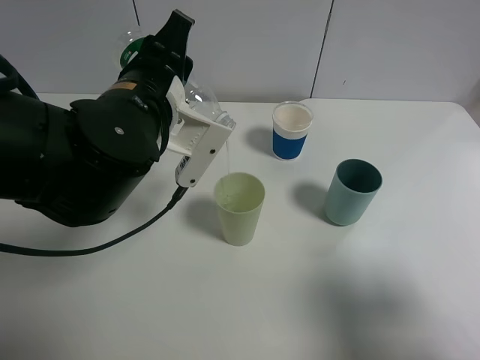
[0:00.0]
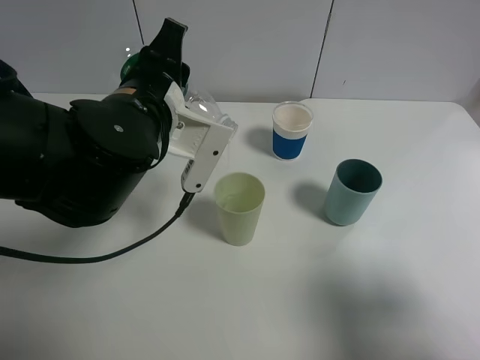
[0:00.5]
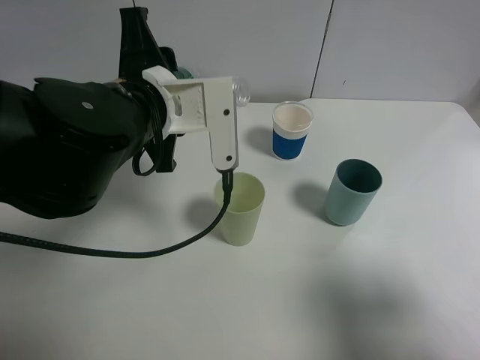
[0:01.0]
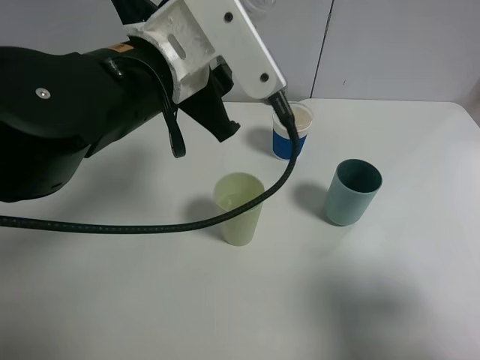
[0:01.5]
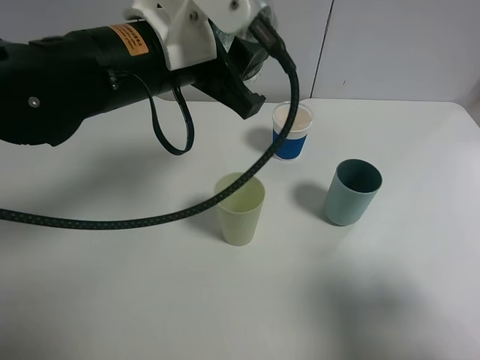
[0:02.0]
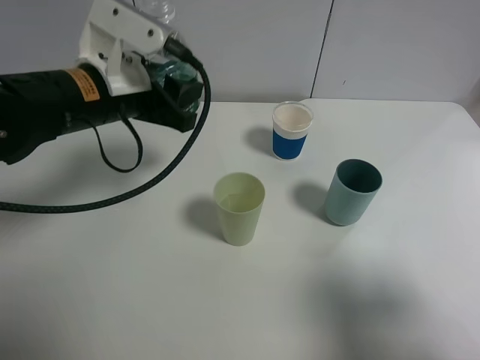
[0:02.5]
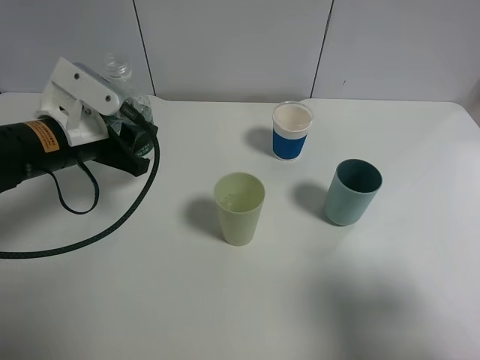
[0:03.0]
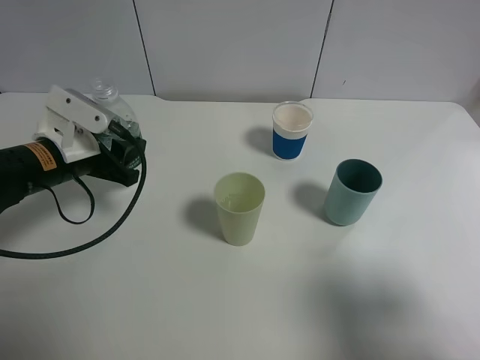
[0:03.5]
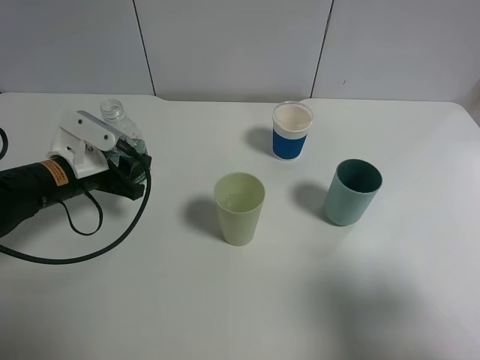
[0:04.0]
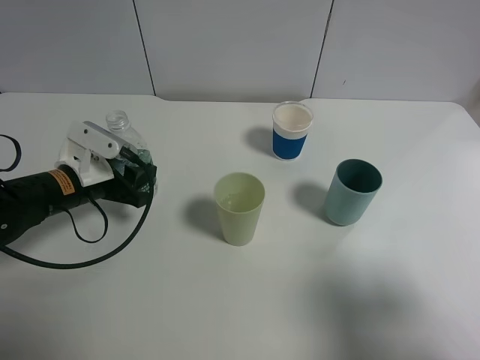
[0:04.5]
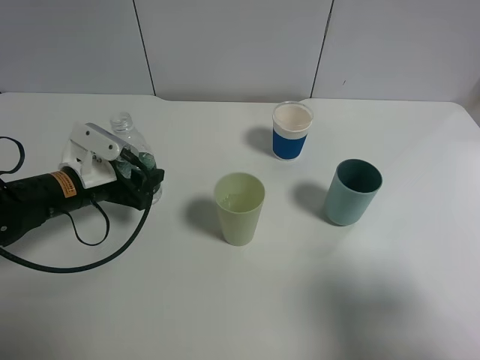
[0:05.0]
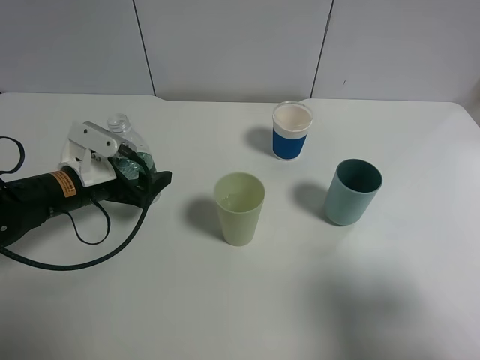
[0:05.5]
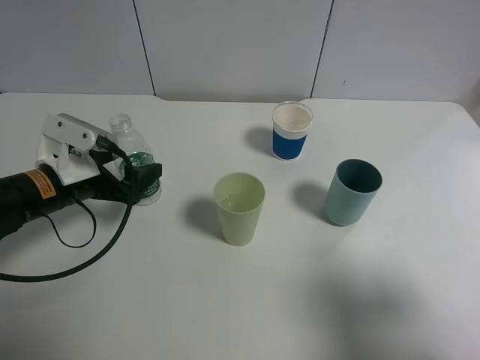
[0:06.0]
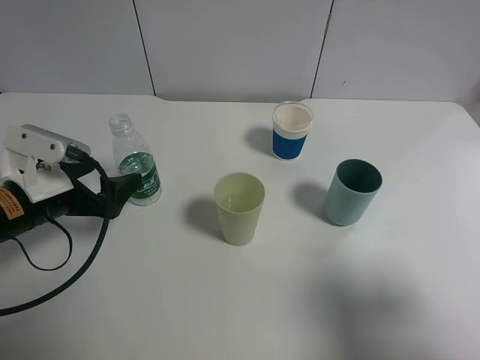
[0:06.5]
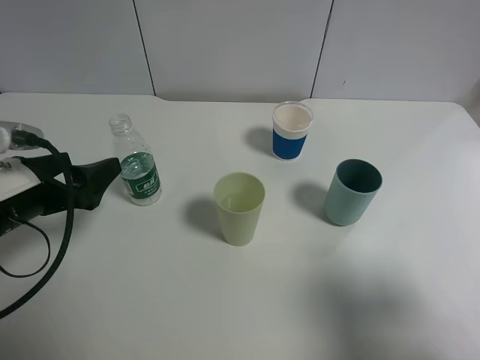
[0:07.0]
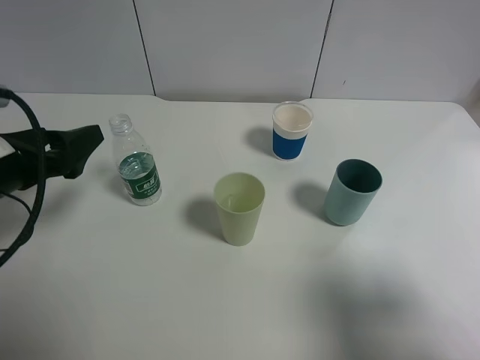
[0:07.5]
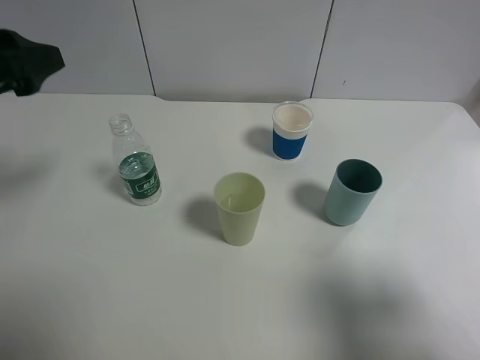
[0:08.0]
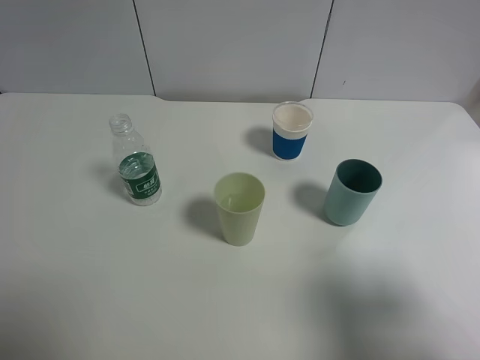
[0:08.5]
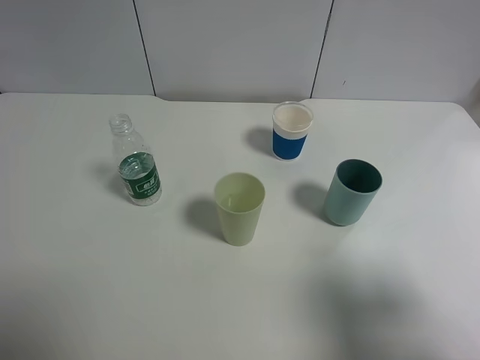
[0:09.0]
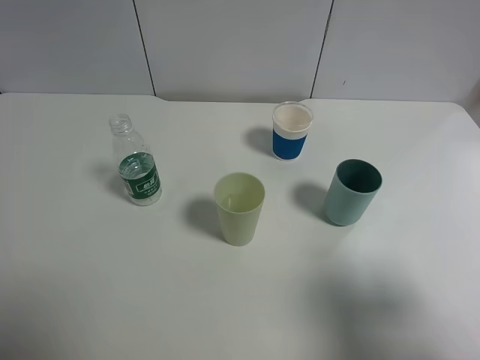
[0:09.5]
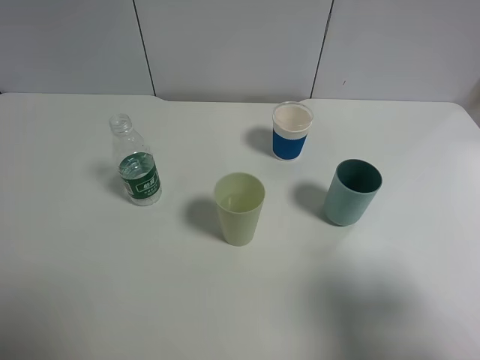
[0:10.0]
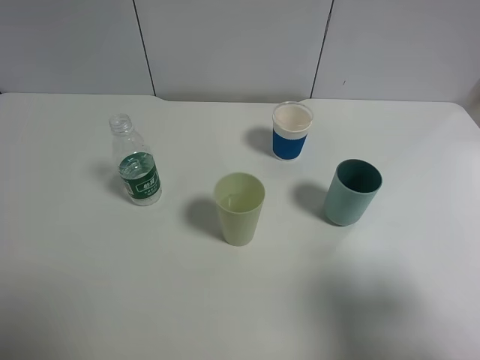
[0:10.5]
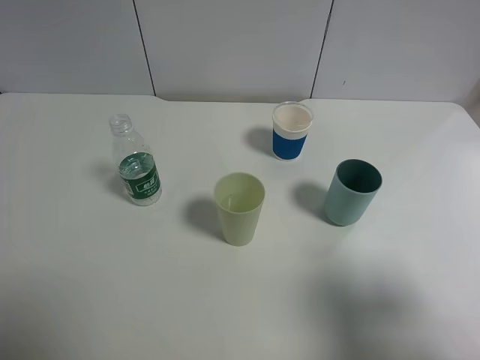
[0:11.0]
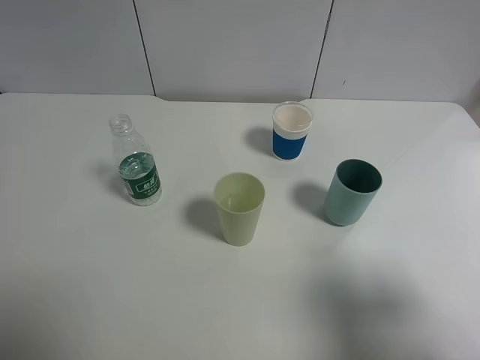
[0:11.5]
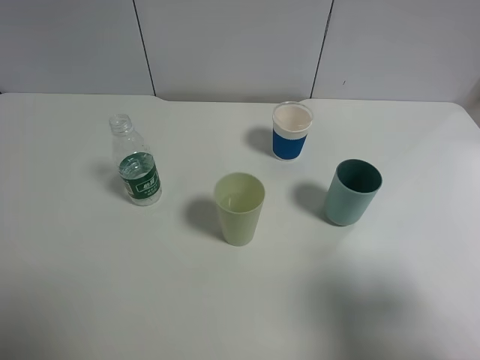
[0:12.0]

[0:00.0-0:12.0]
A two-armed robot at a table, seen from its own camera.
Task of the whole recording: use a gripper to hold the bottle of the drink and pour it into a random cup.
Step, 0:01.5 to 0:06.5: Place the mineral water bottle on the table with the left gripper.
0:00.0 to 0:02.0: The left gripper changes place by some 5 cm.
0:02.0 to 0:04.0: The left gripper is displaced downward and to the left by roughly 25 cm.
0:04.0 to 0:06.0: The left gripper opens up.
0:06.0 to 0:08.0: The left gripper shifts roughly 20 cm upward.
0:08.0 to 0:10.0: The left gripper is displaced backward by roughly 20 cm.
0:10.0 to 0:12.0: Both grippers stay about where they are.

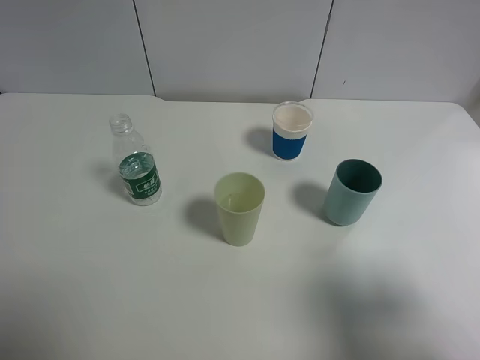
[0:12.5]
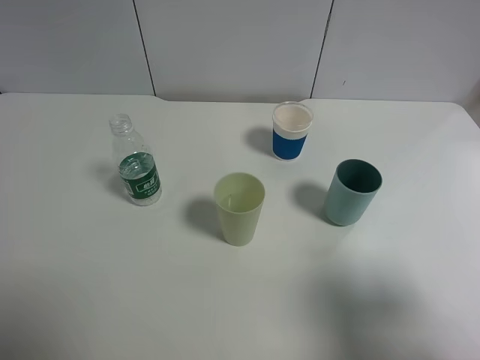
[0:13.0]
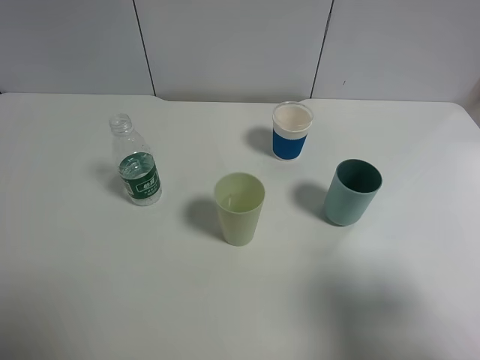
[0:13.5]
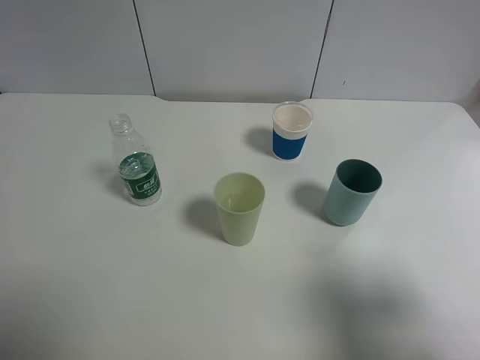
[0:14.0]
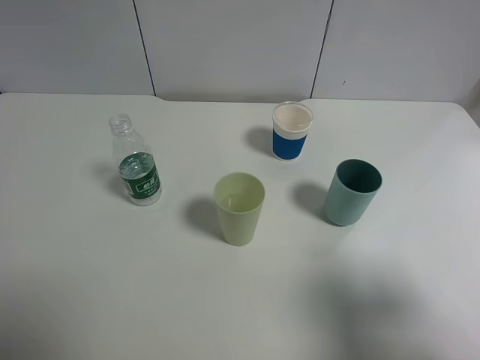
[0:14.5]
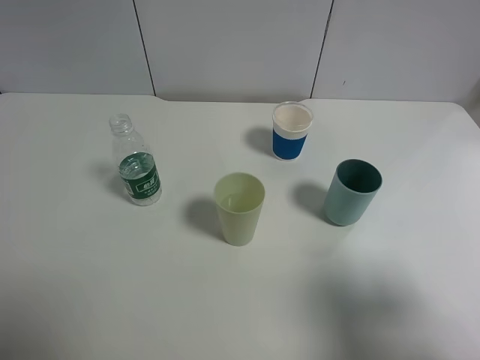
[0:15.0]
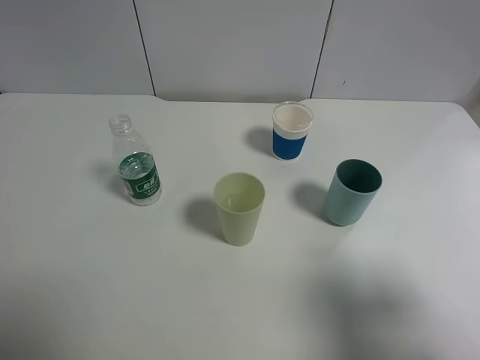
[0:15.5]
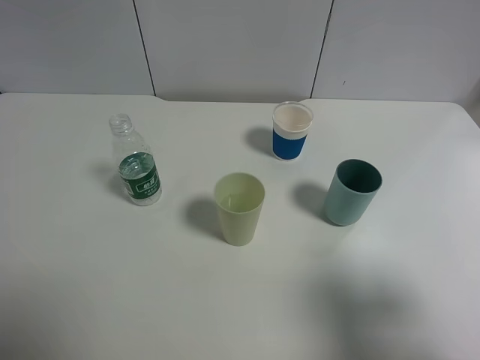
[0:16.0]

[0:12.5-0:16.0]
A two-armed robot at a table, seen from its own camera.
Task of the whole recording: use a gripper to hold the bottle of the drink and pour it into a random cup.
0:12.5 to 0:16.0: Neither gripper changes place.
